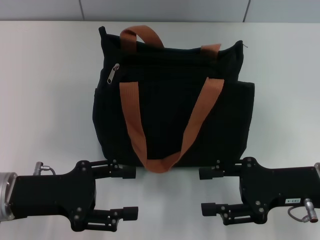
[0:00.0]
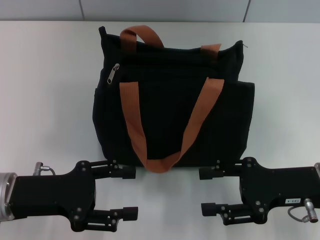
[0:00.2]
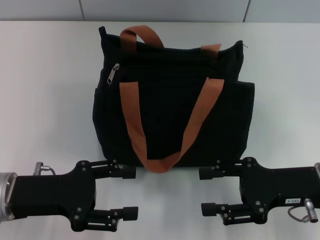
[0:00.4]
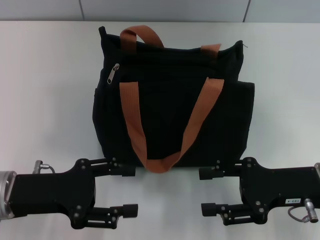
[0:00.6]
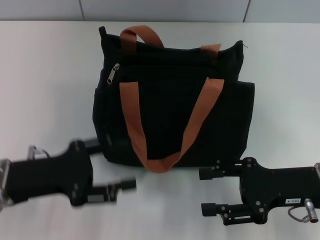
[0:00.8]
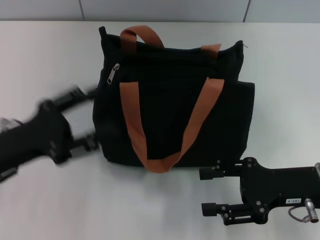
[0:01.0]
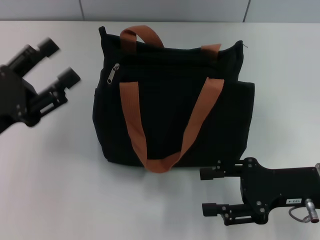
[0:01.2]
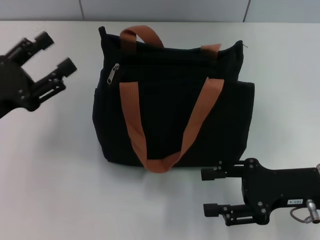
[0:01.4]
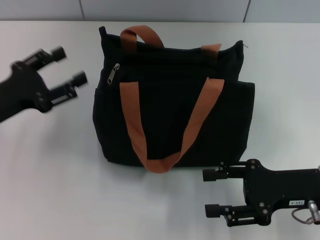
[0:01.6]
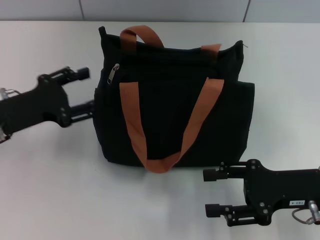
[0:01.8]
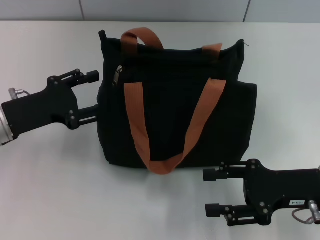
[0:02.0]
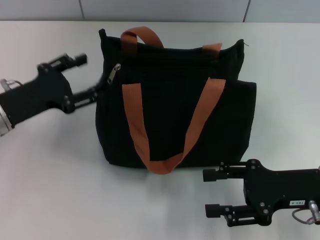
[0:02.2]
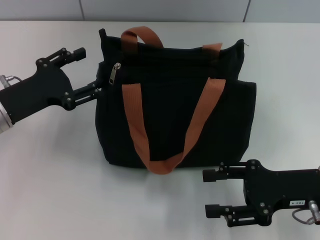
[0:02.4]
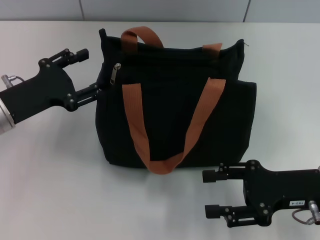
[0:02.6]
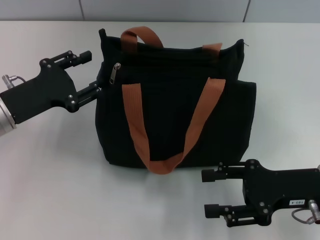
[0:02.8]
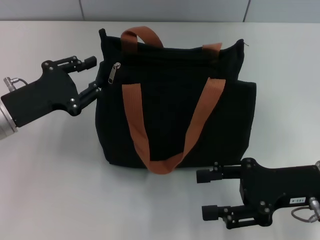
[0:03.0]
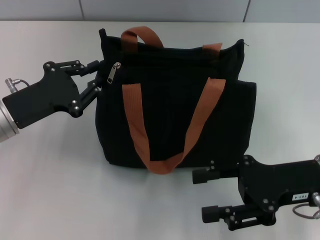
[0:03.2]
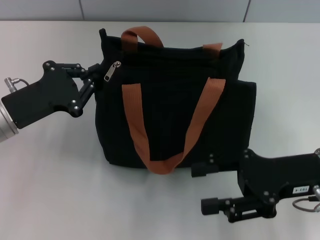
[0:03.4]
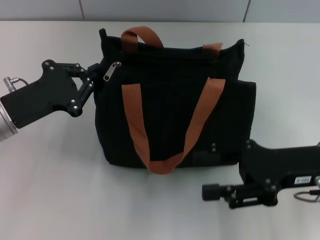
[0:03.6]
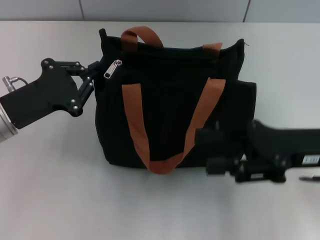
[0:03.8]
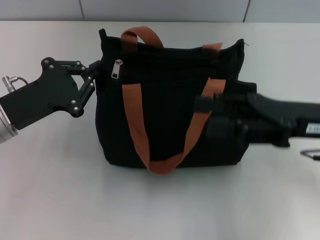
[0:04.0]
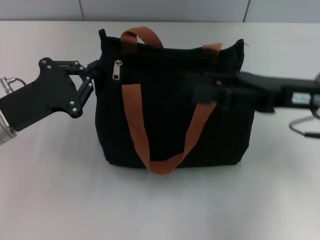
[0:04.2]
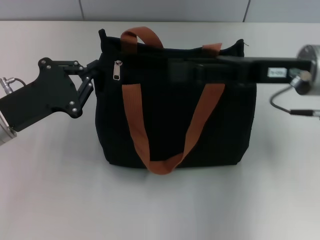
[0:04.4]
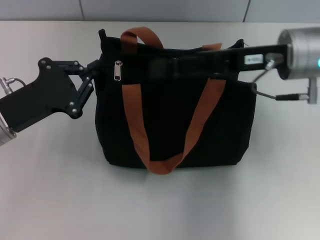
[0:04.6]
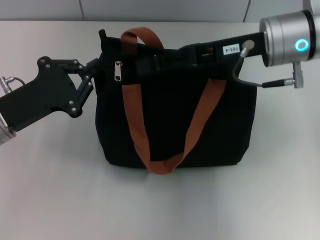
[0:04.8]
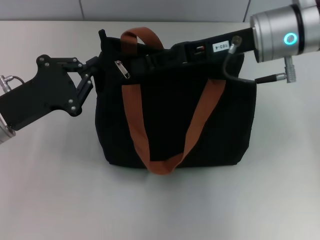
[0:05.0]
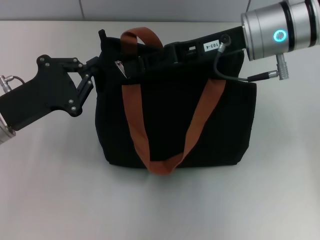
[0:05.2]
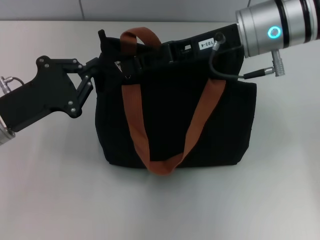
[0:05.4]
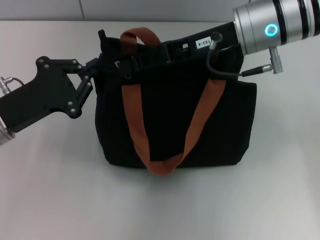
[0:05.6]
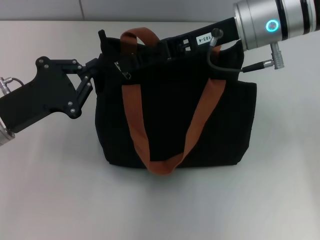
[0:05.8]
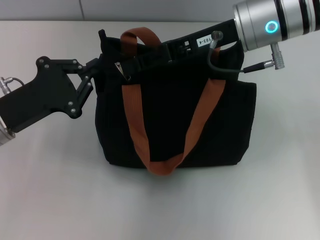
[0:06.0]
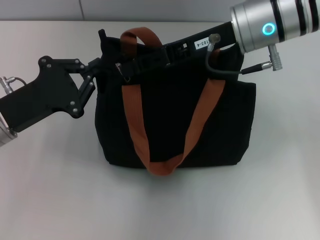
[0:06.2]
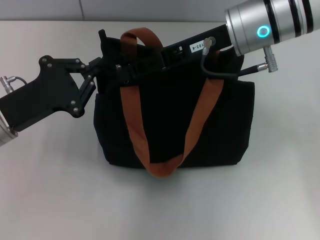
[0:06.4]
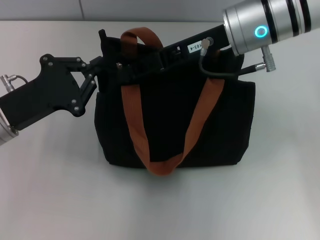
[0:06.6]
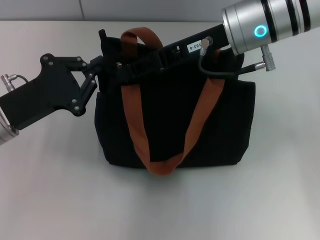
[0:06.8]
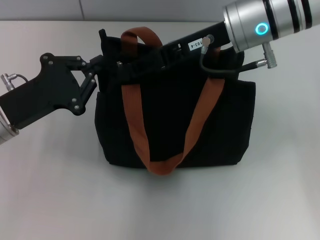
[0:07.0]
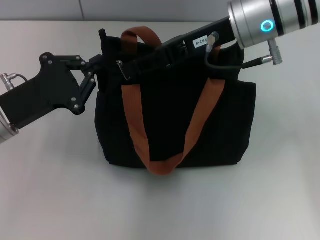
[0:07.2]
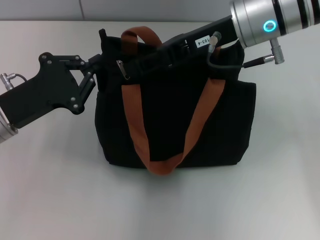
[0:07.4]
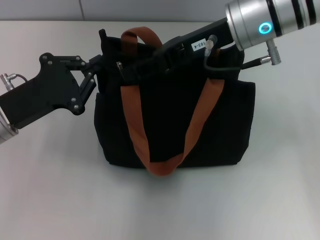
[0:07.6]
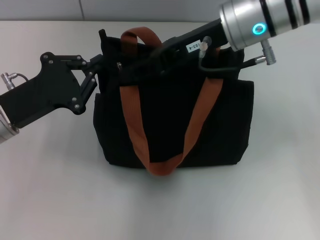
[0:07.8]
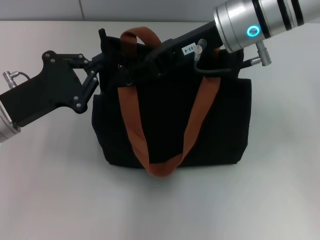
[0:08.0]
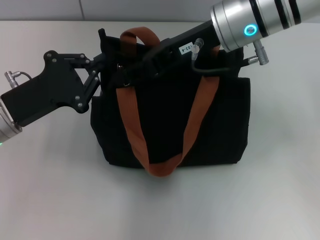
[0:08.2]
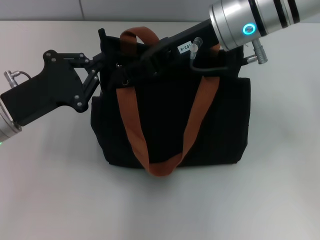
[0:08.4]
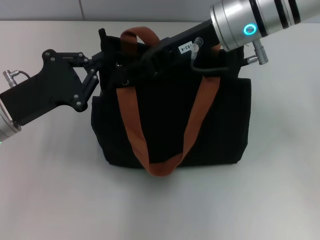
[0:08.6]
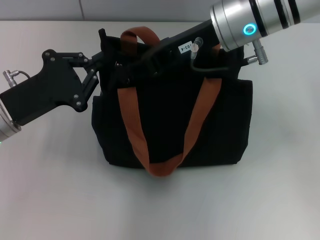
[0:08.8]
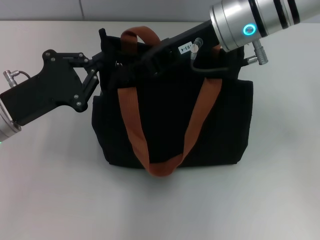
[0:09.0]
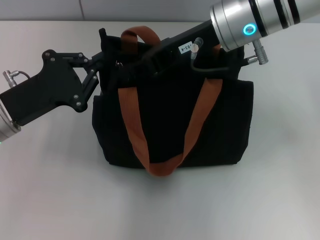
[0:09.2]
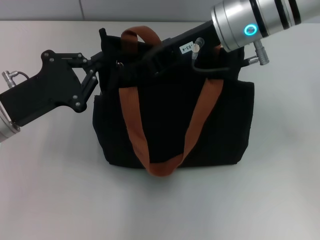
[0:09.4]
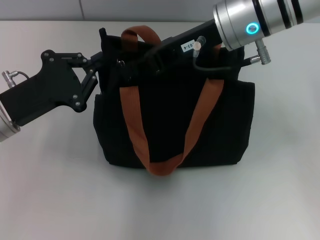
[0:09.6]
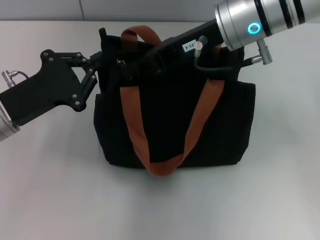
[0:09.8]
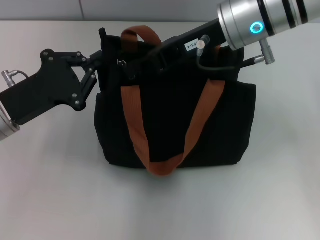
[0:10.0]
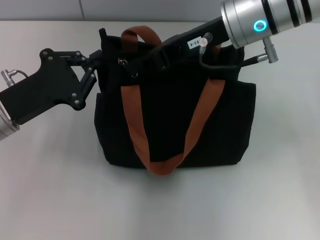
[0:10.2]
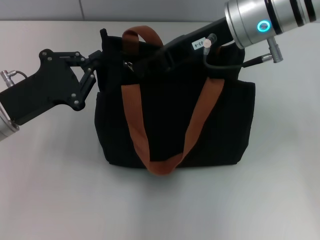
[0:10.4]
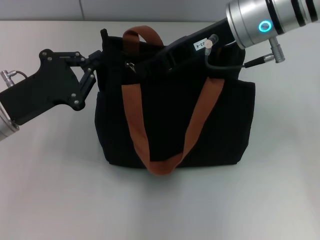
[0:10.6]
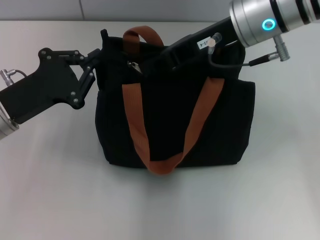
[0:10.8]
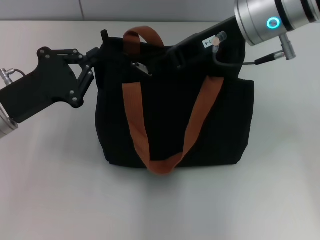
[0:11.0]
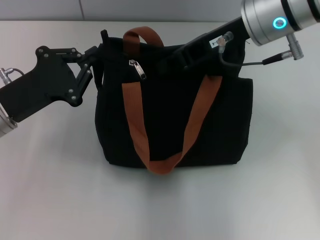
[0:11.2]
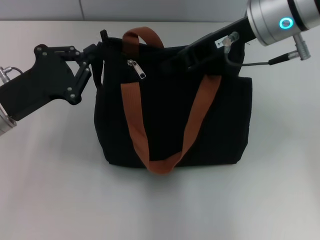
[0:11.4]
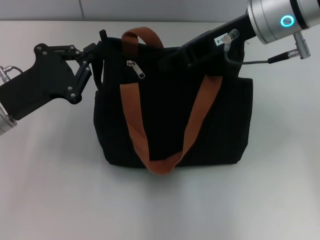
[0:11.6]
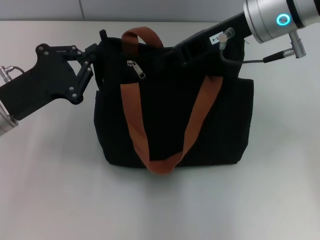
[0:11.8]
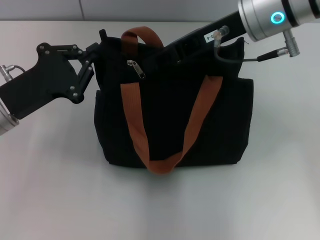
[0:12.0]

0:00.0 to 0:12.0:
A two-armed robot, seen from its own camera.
0:00.0 to 0:01.6: The left gripper shifts roughly 10 cm forward and to the left.
0:01.6 to 0:03.0: There are only small adjustments of the grippers.
0:03.0 to 0:04.4: The left gripper closes its fingers, while the right gripper heads forward and upward, covering about 15 cm.
0:04.4 to 0:06.0: The right gripper moves to the left and forward, about 10 cm.
0:06.0 to 0:10.4: The grippers make only small movements.
0:10.4 to 0:12.0: The grippers move only a little.

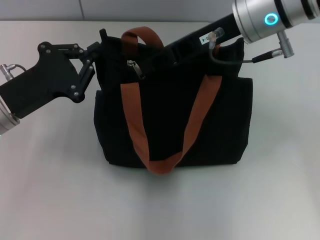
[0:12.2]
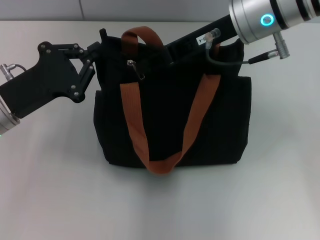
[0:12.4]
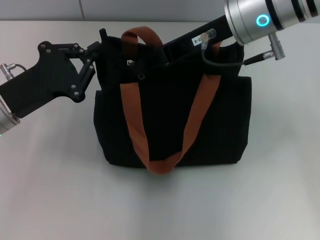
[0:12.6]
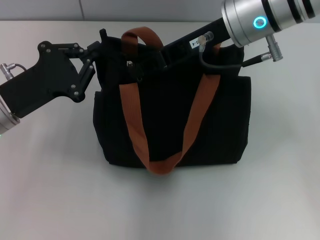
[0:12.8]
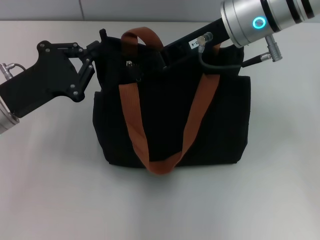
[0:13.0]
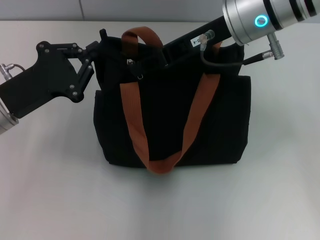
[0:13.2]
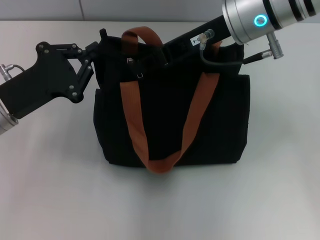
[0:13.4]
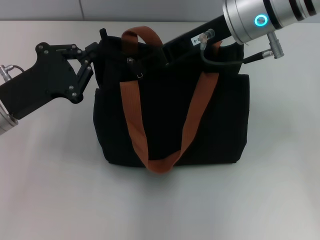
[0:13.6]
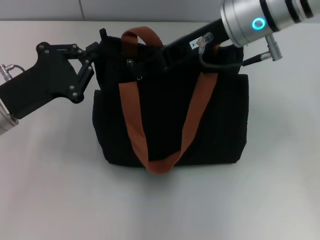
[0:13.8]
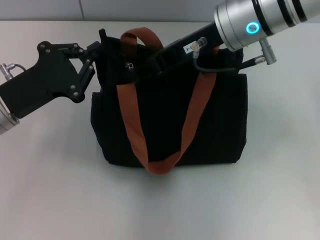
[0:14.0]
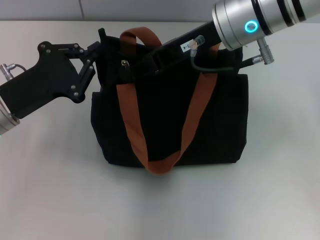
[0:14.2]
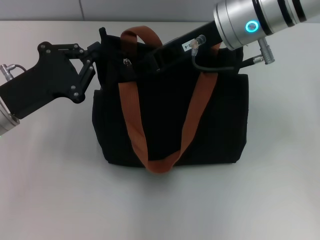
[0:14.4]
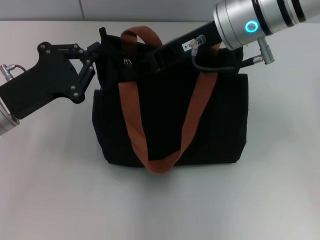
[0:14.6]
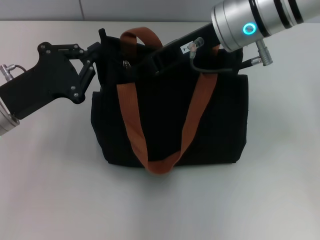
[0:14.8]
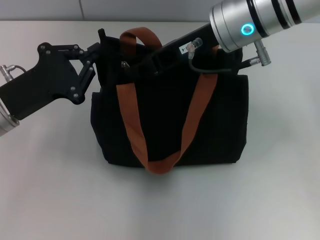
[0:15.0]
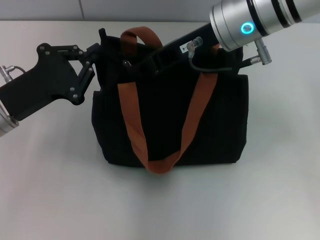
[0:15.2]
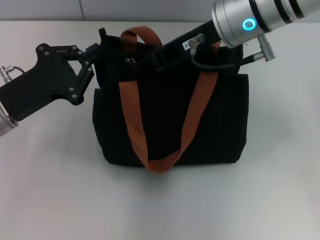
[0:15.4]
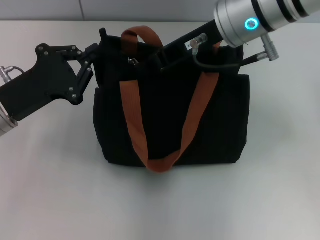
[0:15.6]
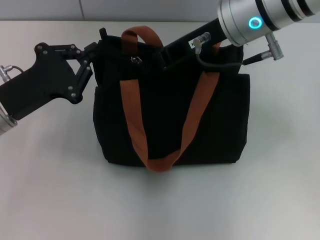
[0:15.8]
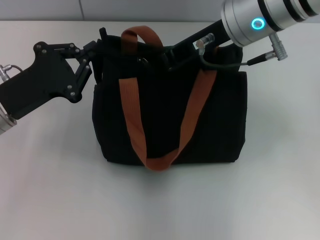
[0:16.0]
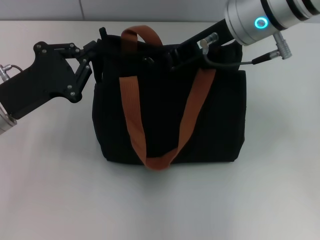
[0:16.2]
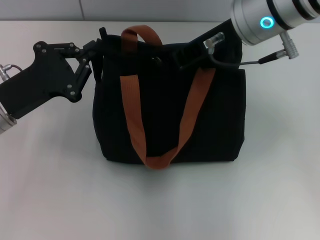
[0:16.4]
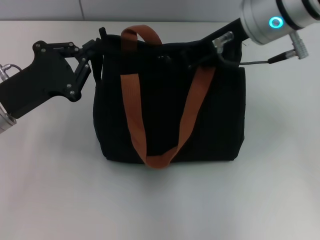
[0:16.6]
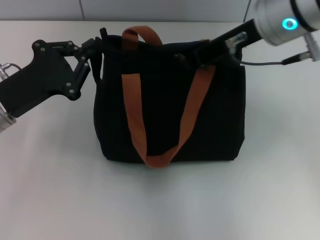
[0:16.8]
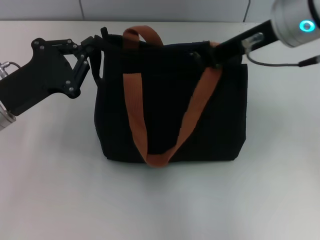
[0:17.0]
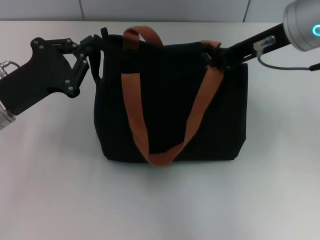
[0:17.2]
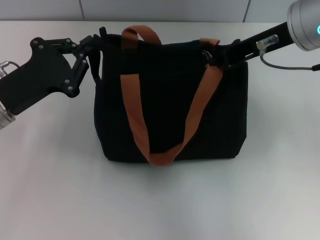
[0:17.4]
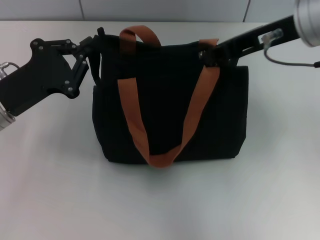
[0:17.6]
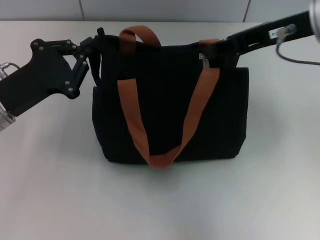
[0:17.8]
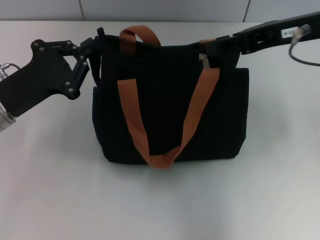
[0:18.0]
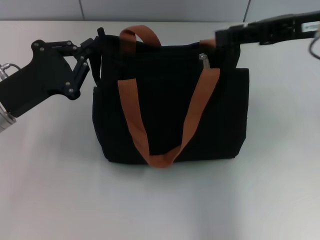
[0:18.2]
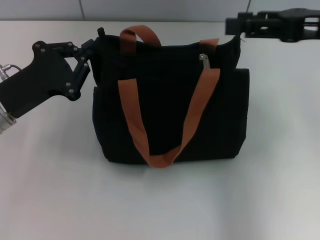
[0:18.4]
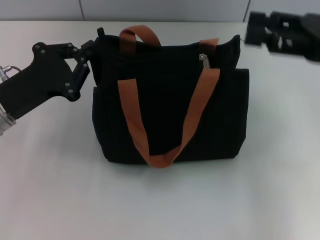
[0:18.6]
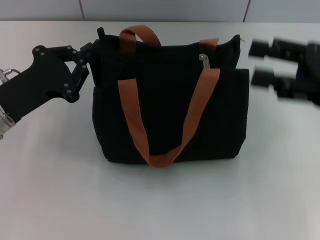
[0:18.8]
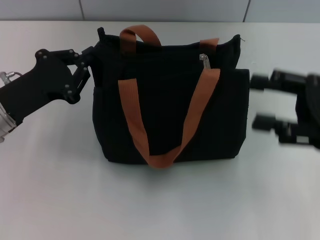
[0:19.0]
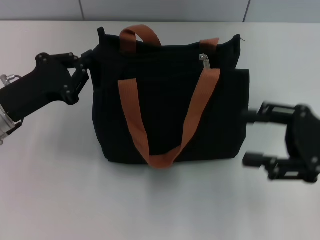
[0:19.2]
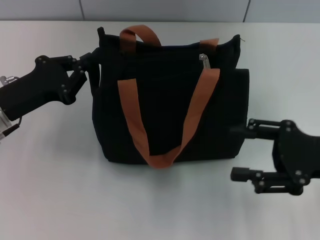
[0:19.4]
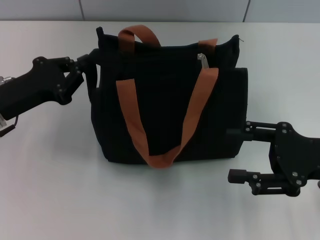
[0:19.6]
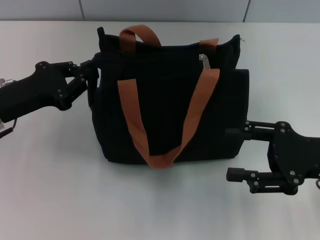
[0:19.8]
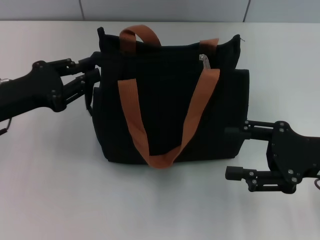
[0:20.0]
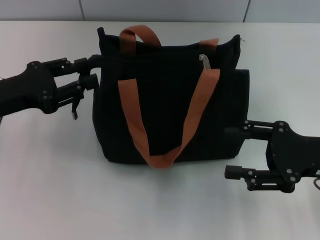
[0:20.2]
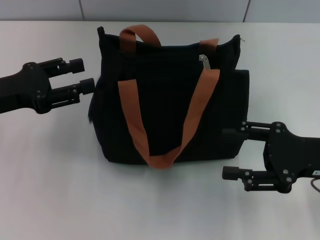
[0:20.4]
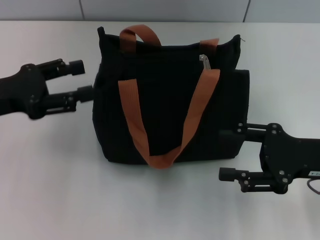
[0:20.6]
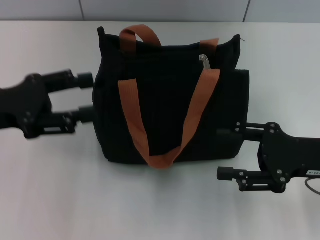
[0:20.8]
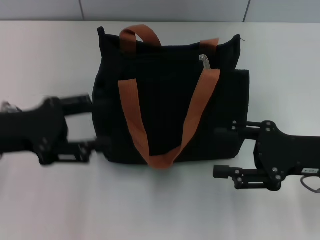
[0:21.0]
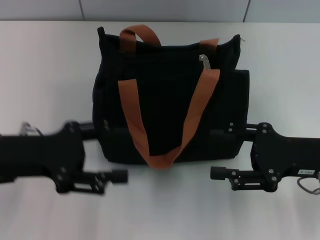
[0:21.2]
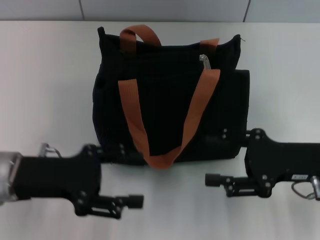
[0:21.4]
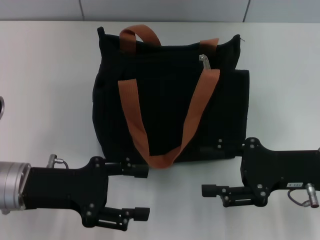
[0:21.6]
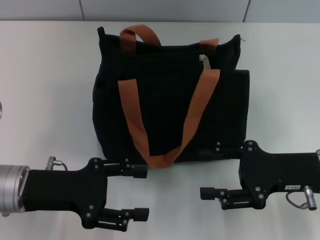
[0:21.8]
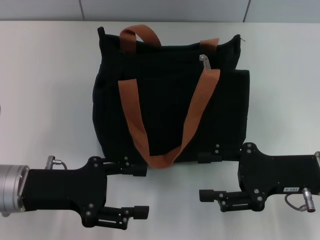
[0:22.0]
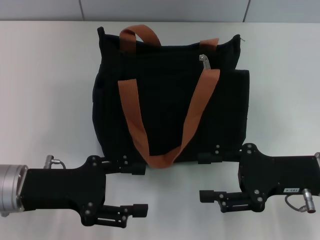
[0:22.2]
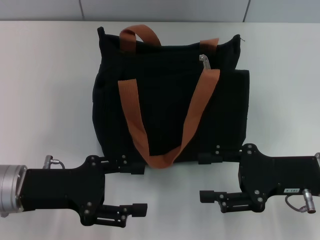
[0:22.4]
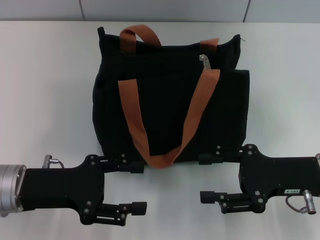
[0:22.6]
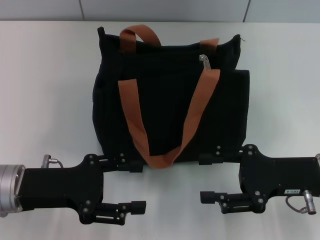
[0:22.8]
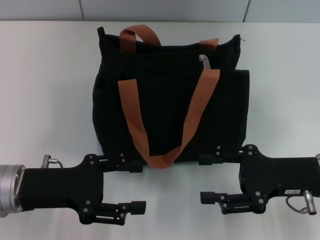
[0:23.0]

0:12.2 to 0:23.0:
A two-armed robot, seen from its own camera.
Step, 0:12.2 to 0:18.2: Pull up the zipper with your right hand.
Step, 0:18.4 to 0:20.2: Grab the zipper with your left hand.
0:12.2 to 0:13.8: Neither gripper changes place.
0:13.8 to 0:15.2: Both grippers stay about where they are.
0:16.8 to 0:18.4: The right gripper shifts roughly 15 cm to the right, and opens its fingers.
0:18.4 to 0:20.0: The right gripper travels downward and backward by some 15 cm.
0:20.0 to 0:21.4: The left gripper shifts by roughly 5 cm, and opens its fingers.
0:21.4 to 0:23.0: There are only small adjustments of the grippers.
